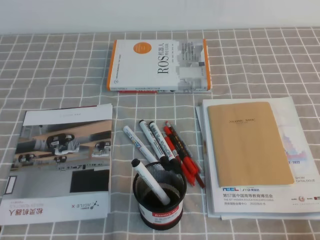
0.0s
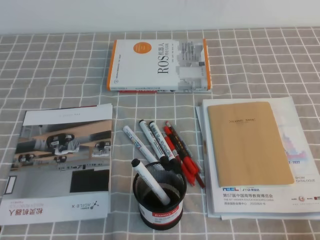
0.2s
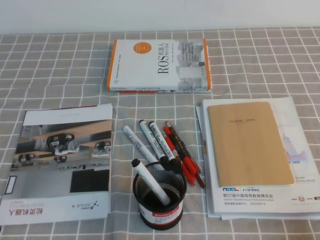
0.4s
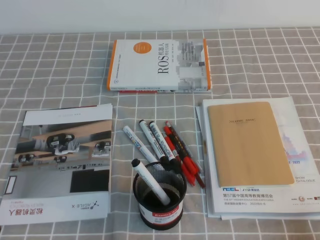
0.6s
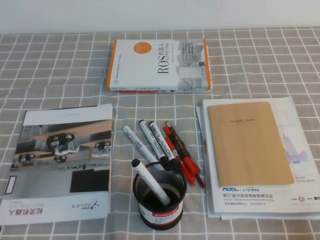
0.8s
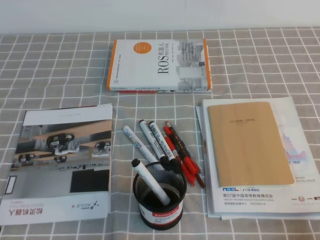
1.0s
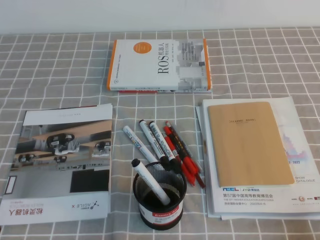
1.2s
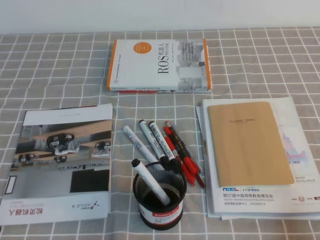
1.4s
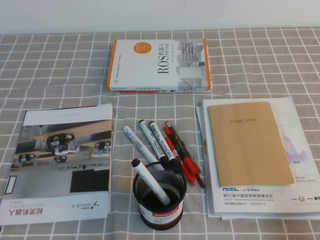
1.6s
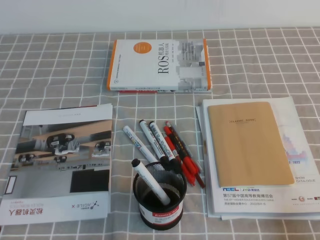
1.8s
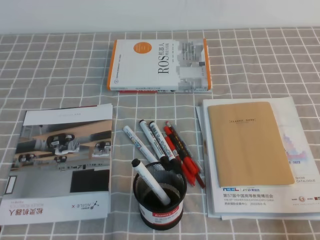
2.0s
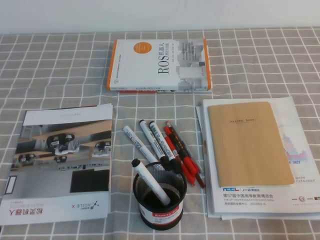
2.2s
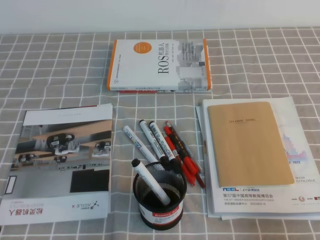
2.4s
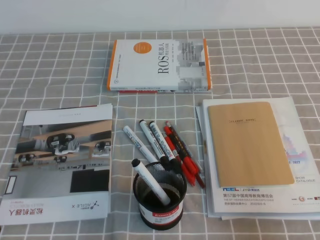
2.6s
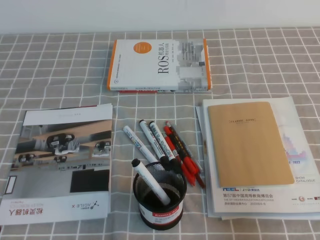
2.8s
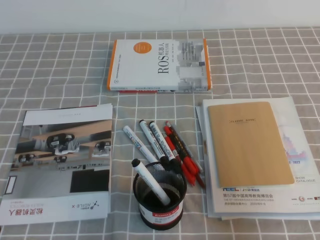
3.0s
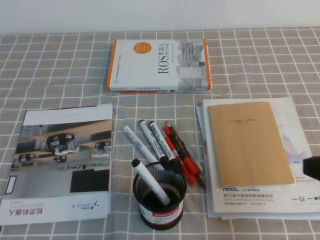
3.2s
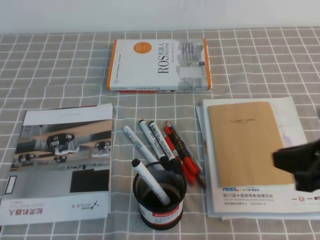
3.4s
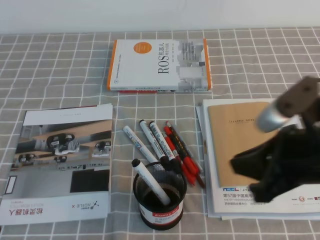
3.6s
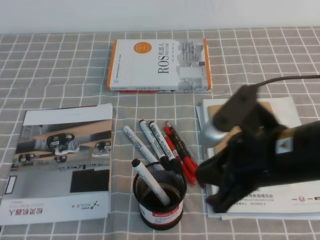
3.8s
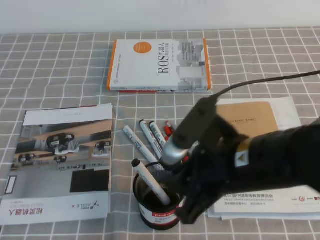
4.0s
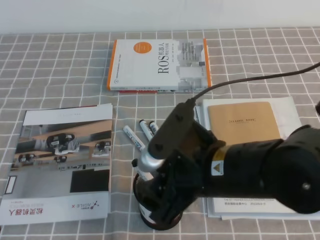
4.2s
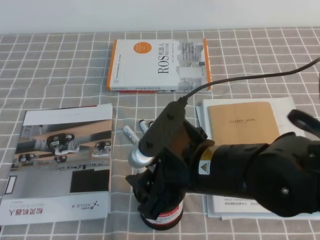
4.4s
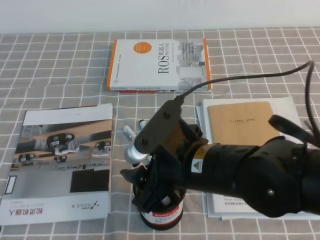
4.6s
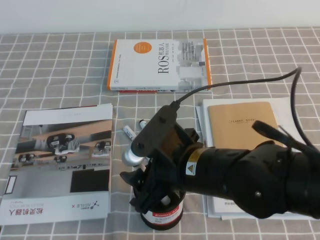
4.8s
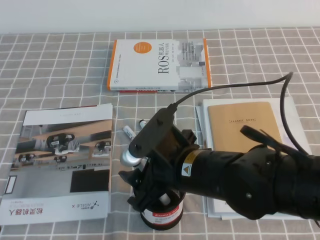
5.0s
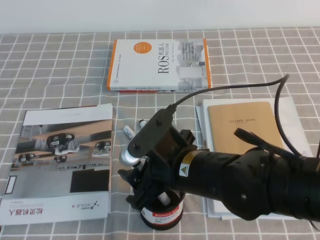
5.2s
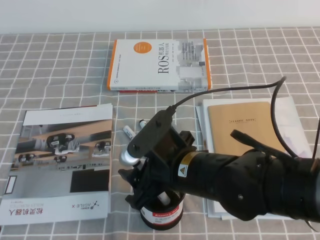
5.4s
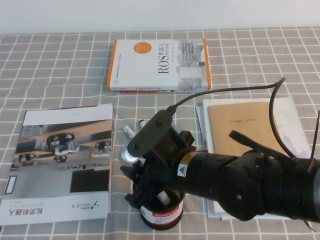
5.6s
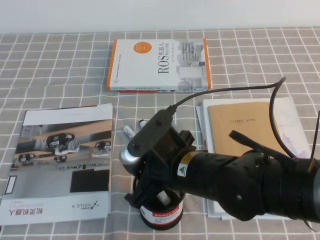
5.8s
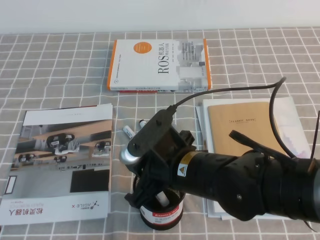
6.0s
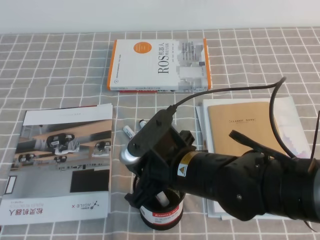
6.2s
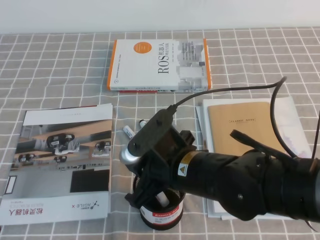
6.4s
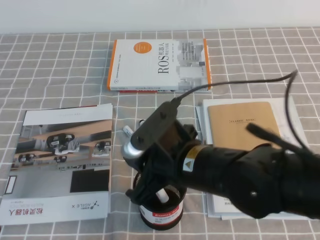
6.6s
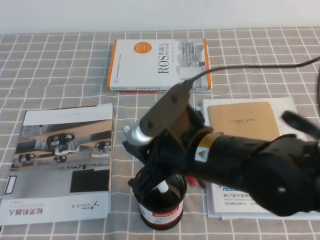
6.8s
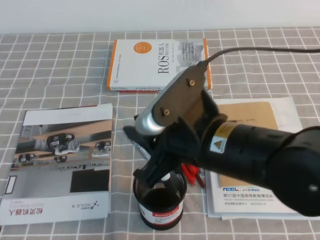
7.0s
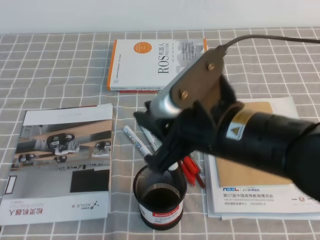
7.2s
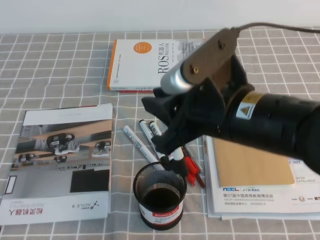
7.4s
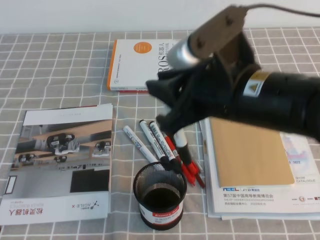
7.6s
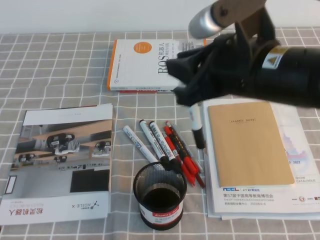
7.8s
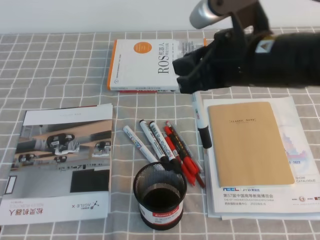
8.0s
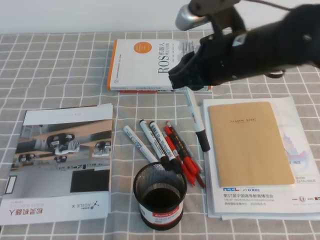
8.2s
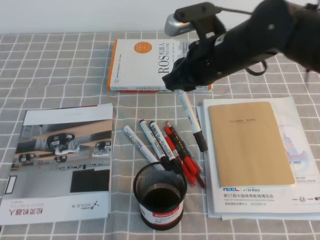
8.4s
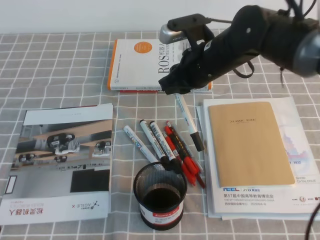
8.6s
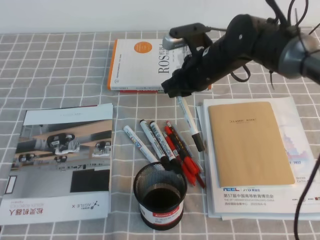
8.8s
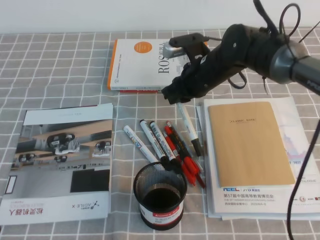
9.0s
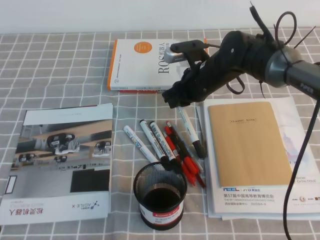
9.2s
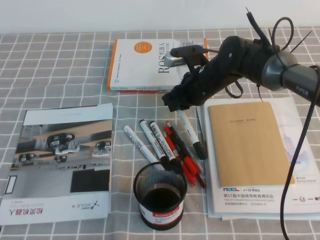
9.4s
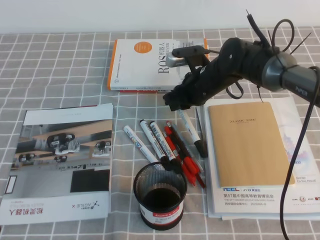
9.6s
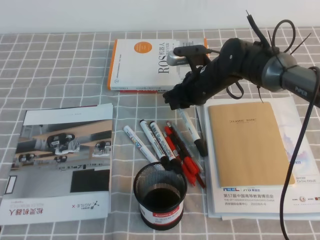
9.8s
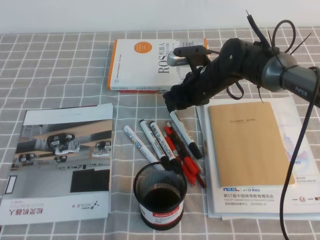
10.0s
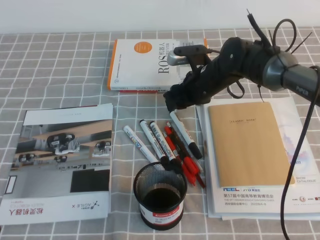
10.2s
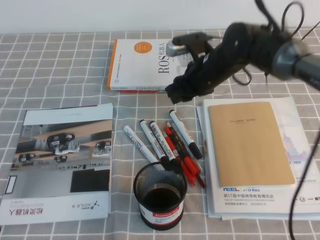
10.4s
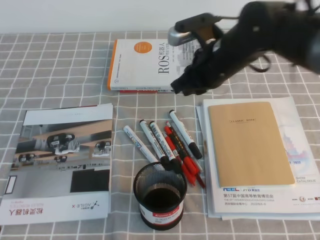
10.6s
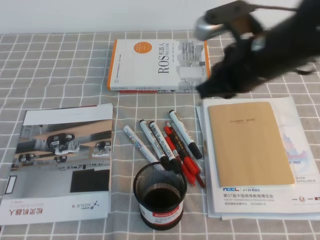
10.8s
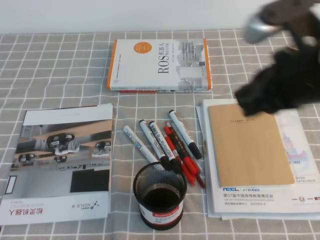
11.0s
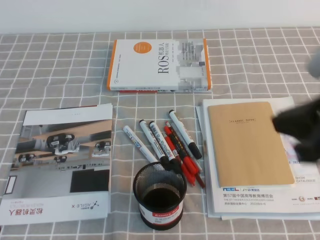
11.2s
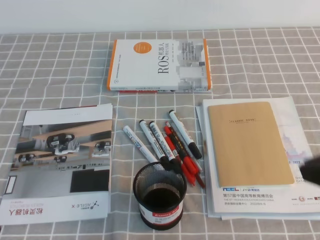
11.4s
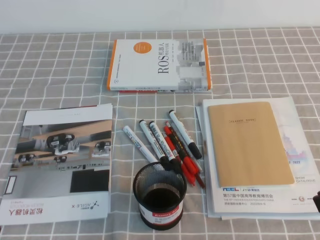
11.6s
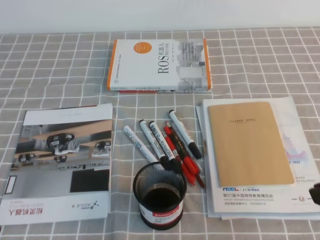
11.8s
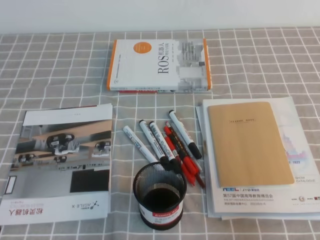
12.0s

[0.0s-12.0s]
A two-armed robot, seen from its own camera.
1.6s to 3.0s: The right gripper moves upward and forward, roughly 10 cm.
3.0s to 4.4s: The right gripper shifts some 20 cm to the left, and opens up.
4.4s to 6.0s: The right gripper moves some 5 cm, and closes its fingers.
6.0s to 7.6s: The right gripper heads upward and to the right, covering some 15 cm.
7.6s to 9.0s: The right gripper moves forward and downward, roughly 25 cm.
9.0s to 10.4s: The grippers stay close to where they were, moving slightly.
10.4s to 12.0s: The right gripper moves backward and to the right, about 35 cm, and closes up.

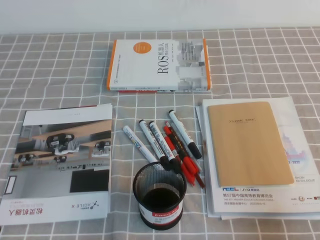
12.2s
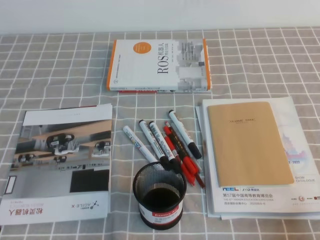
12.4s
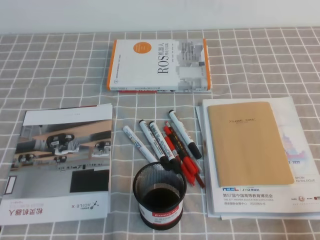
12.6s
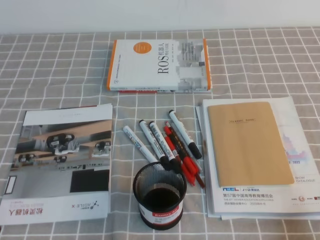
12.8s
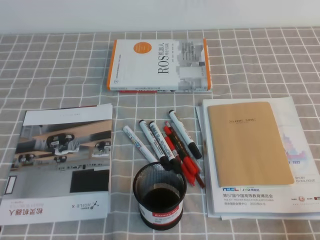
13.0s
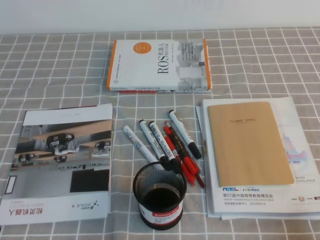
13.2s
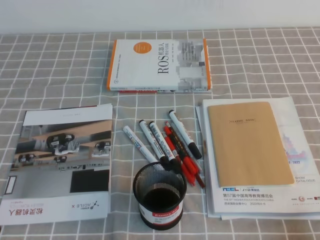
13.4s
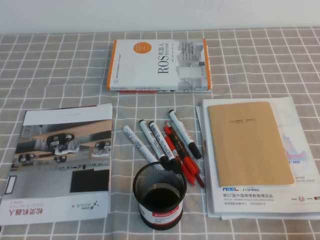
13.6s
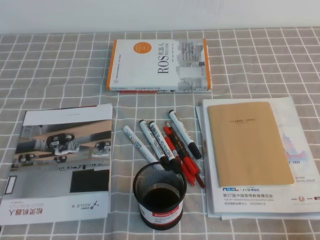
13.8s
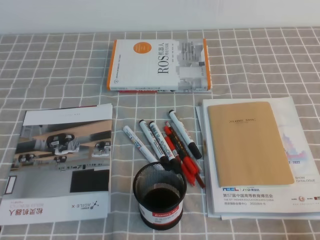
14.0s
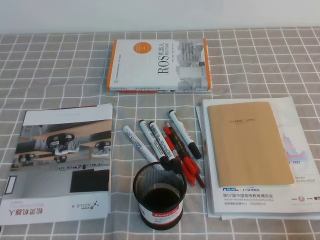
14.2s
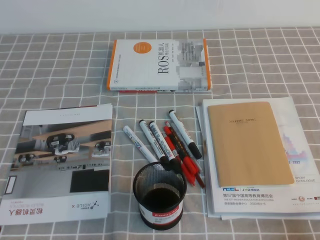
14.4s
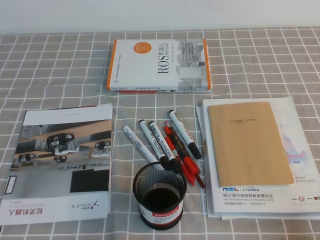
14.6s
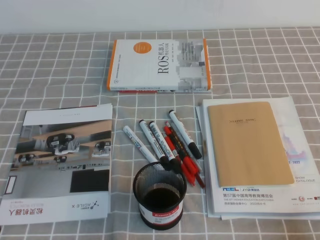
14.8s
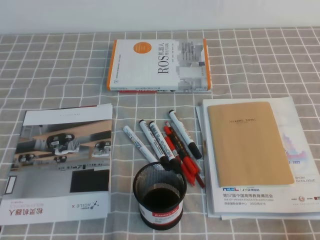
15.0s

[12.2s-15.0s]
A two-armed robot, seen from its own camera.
12.2s to 13.6s: The right gripper travels downward by about 5 cm.
13.6s to 15.0s: Both grippers stay about where they are.

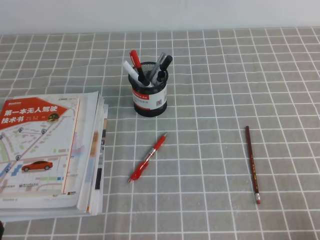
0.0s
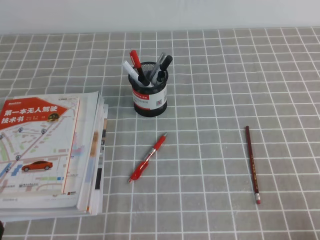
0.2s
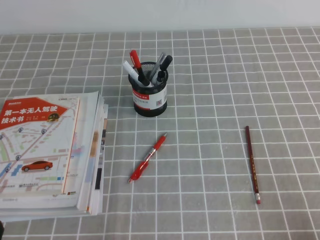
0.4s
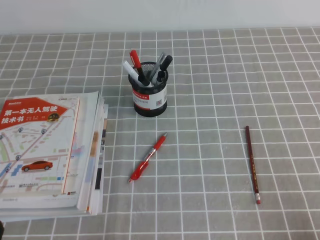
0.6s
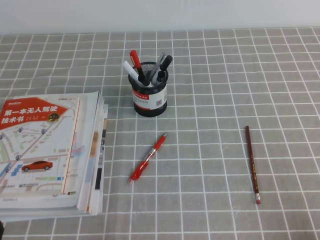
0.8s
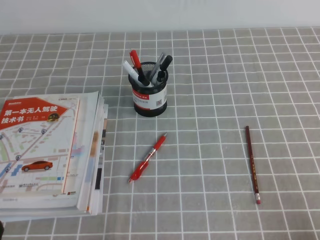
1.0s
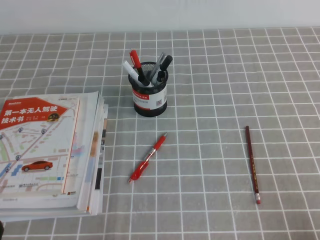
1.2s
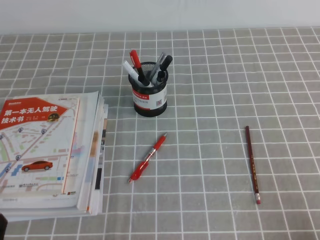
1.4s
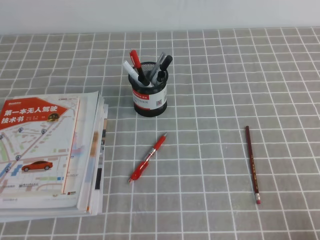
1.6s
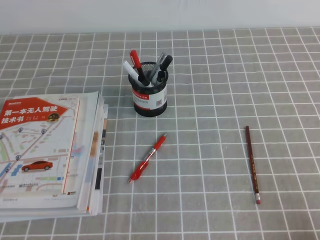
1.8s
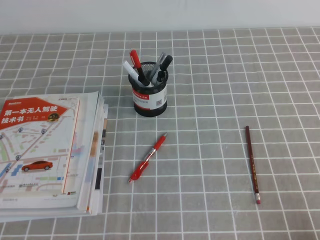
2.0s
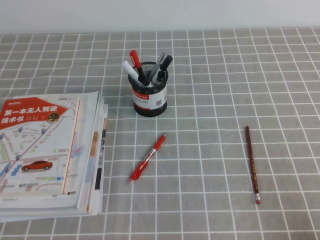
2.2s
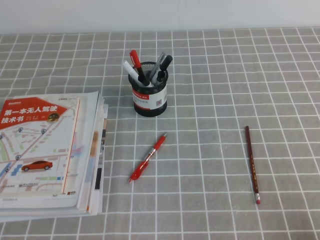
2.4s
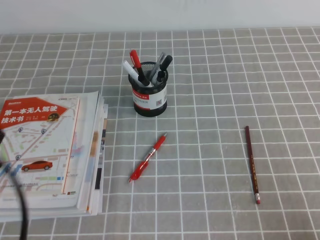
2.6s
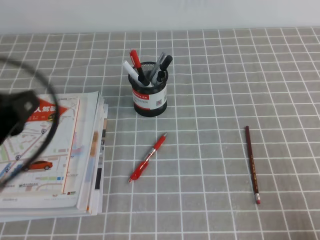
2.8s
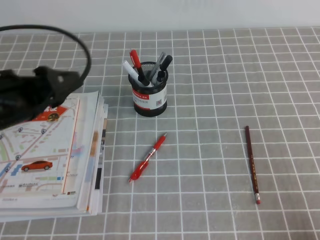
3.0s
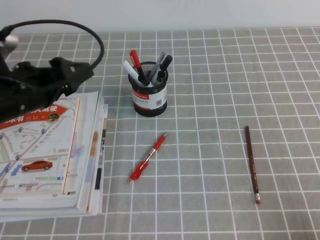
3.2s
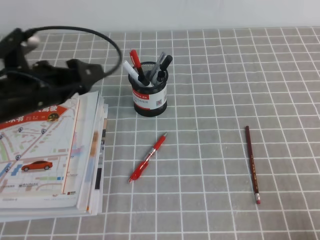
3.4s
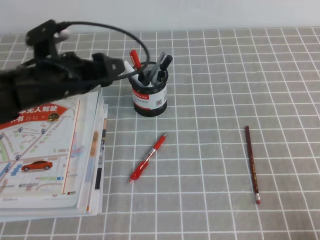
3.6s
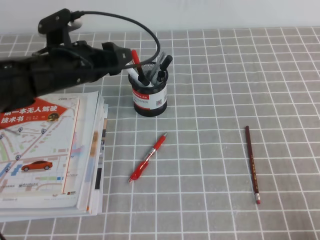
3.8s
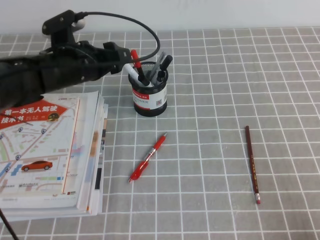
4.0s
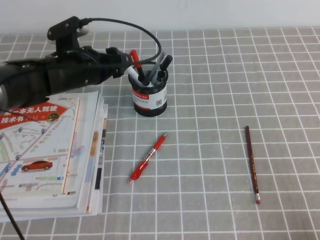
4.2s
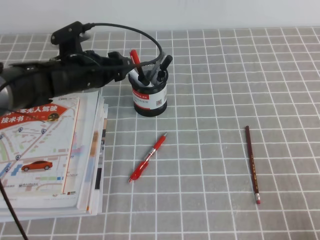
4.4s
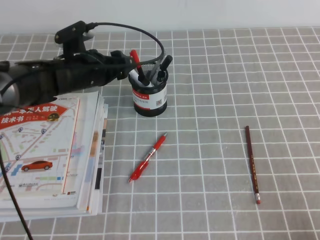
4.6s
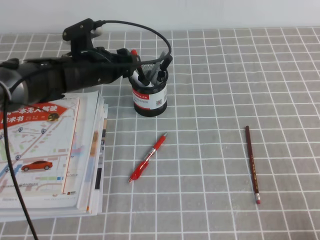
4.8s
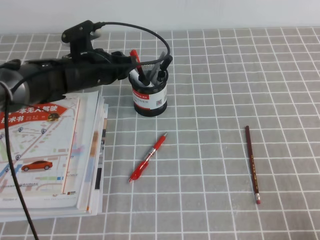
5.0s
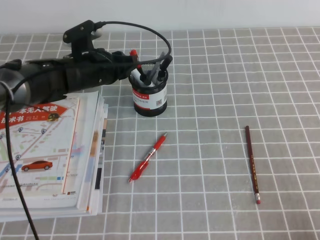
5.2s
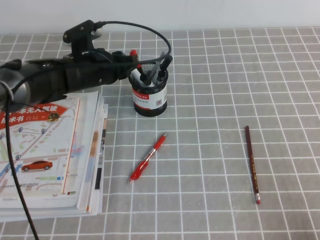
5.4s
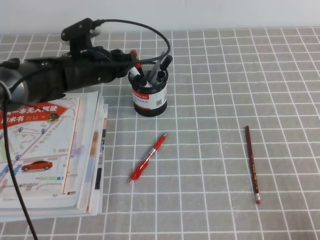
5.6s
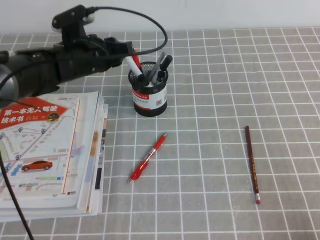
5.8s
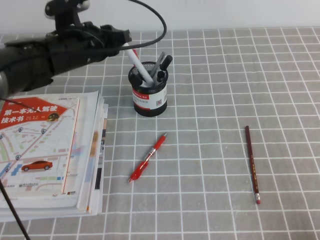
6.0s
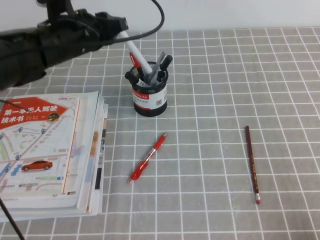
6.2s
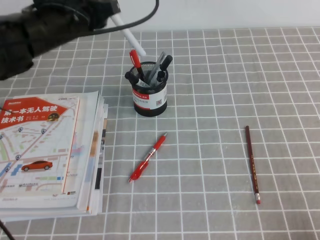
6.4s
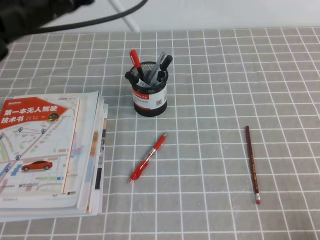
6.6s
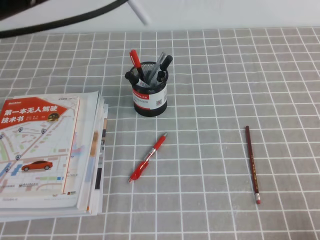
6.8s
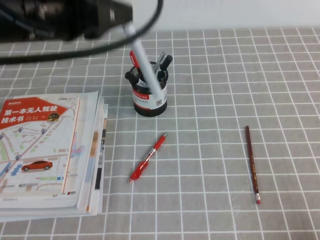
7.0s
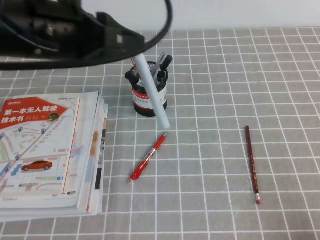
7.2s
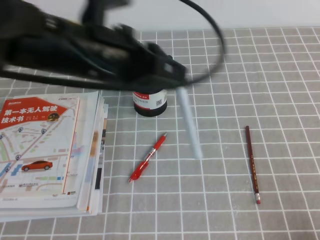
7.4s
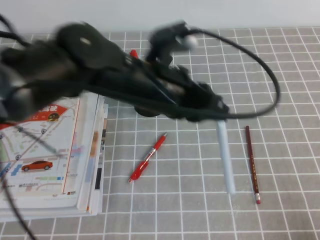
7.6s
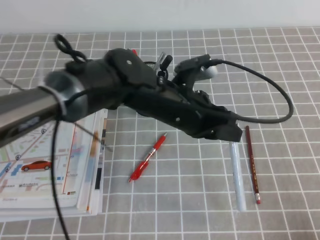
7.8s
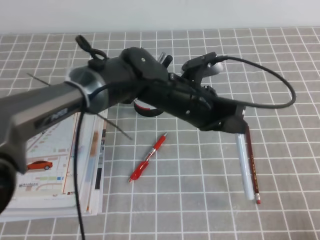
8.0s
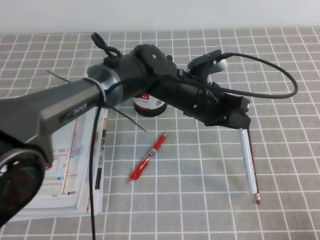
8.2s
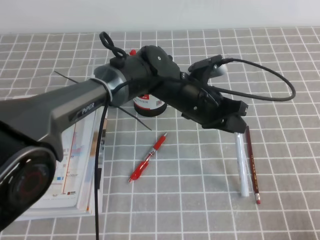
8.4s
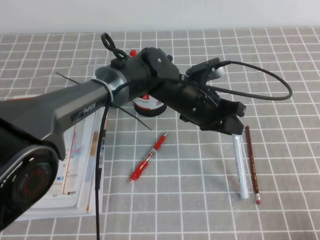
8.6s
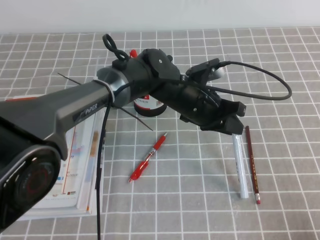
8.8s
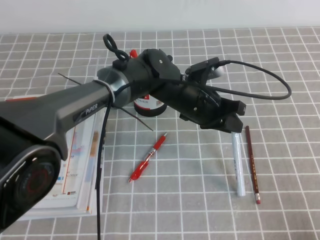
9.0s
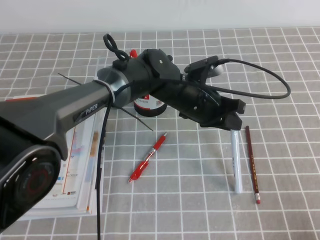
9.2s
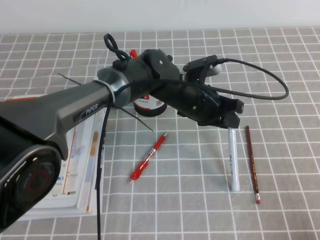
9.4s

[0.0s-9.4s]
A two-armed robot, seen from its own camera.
1.6s to 3.2s: The left gripper is displaced forward and upward by approximately 25 cm, and opens.
3.2s to 4.8s: The left gripper travels forward, to the right and downward by approximately 20 cm.
4.8s to 6.2s: The left gripper is displaced upward by roughly 10 cm, and closes.
6.2s to 7.8s: The left gripper goes roughly 20 cm to the right and backward.
7.8s to 9.4s: The left gripper is displaced downward and forward by some 10 cm.
